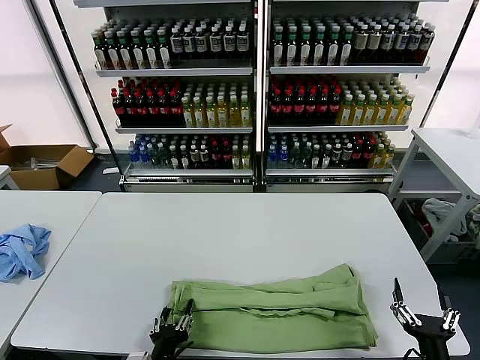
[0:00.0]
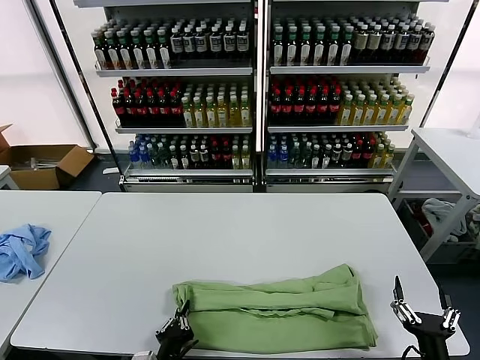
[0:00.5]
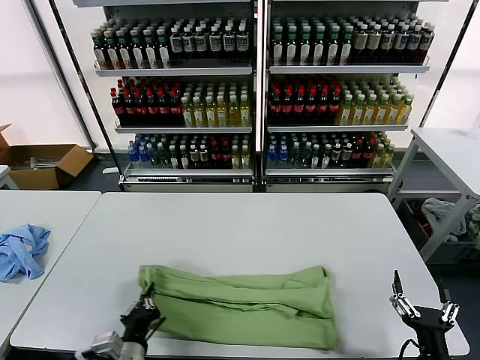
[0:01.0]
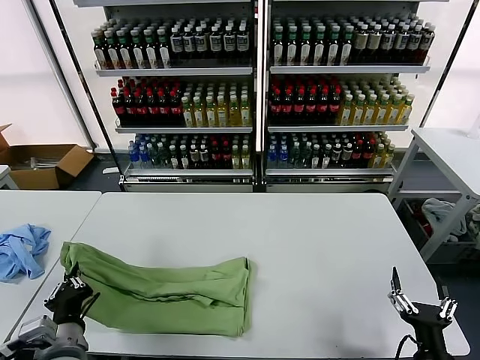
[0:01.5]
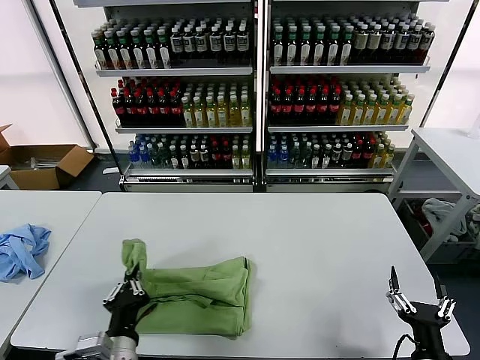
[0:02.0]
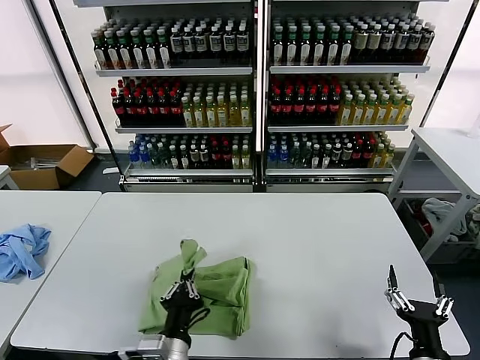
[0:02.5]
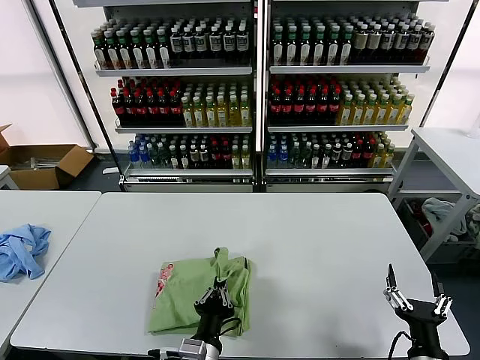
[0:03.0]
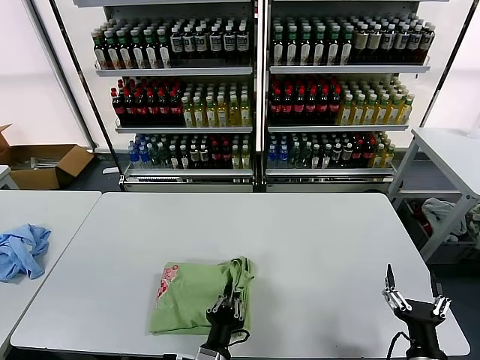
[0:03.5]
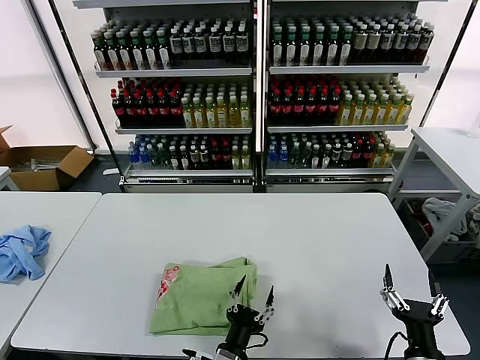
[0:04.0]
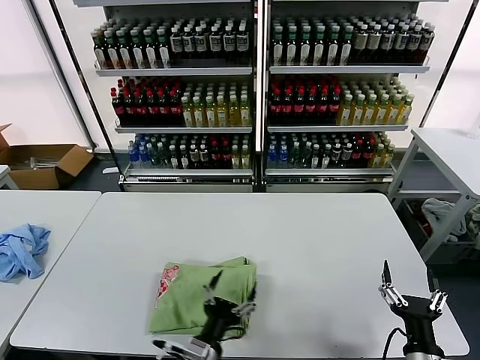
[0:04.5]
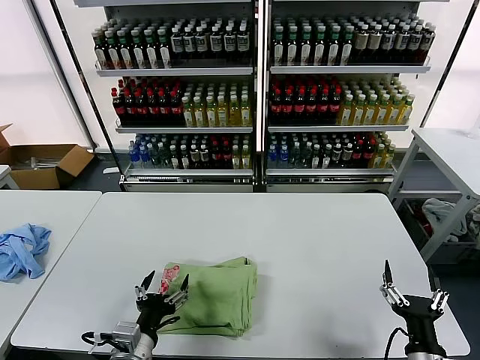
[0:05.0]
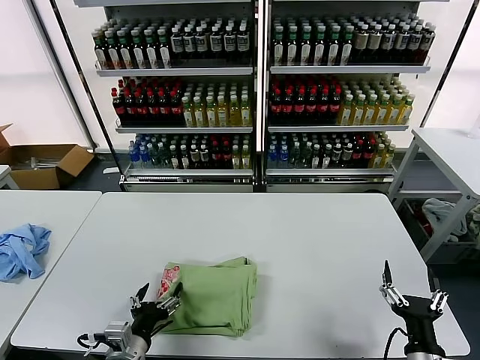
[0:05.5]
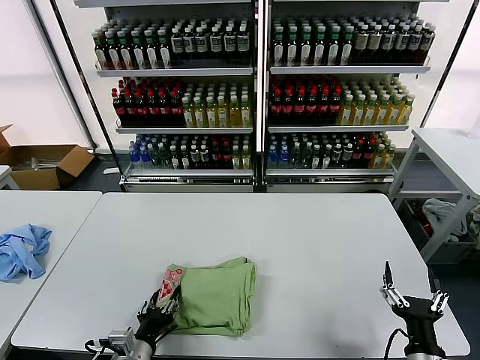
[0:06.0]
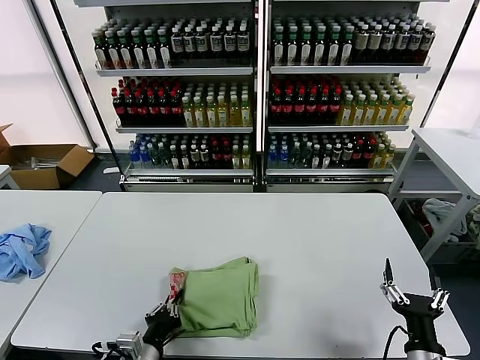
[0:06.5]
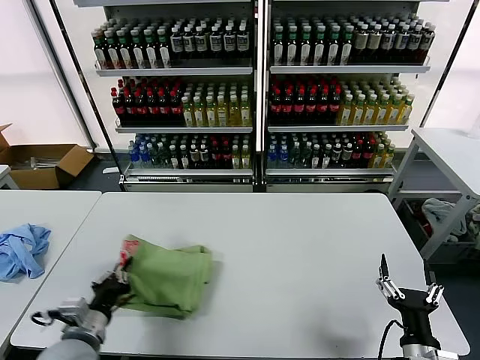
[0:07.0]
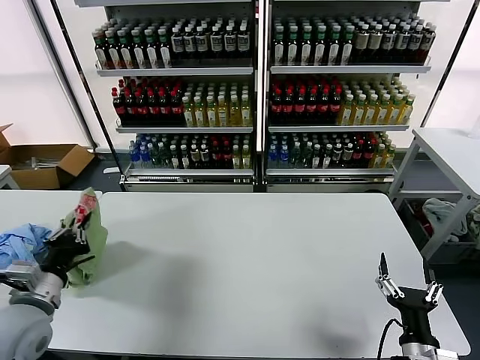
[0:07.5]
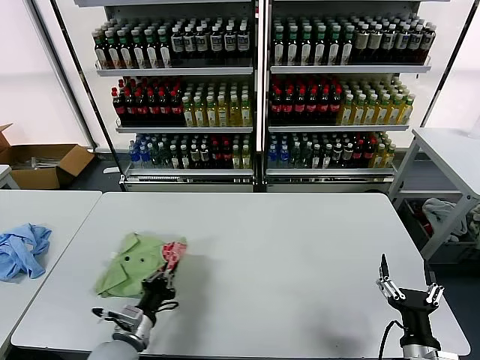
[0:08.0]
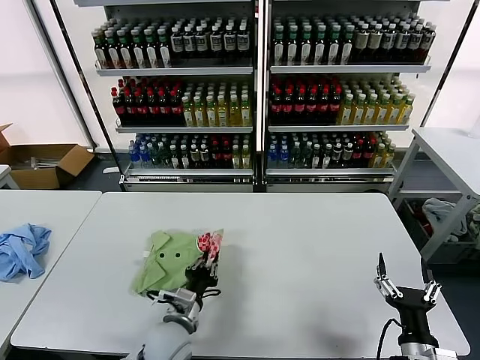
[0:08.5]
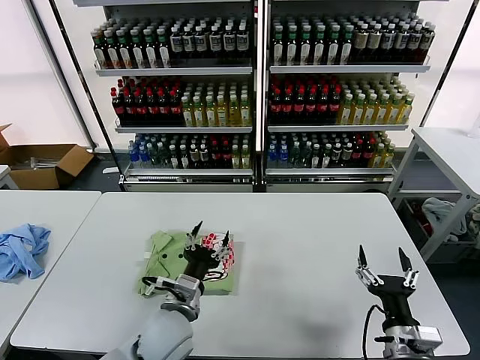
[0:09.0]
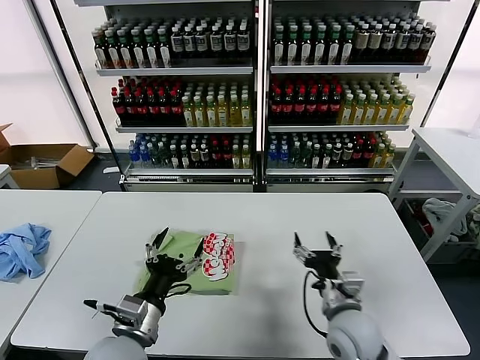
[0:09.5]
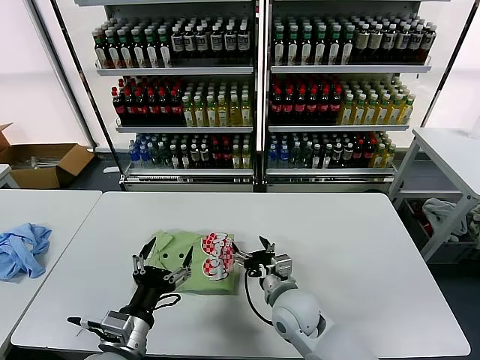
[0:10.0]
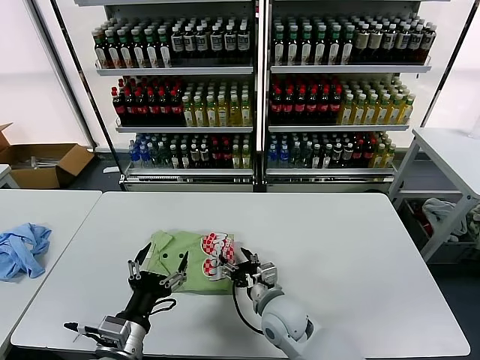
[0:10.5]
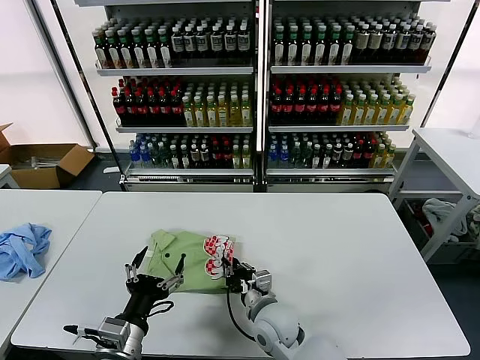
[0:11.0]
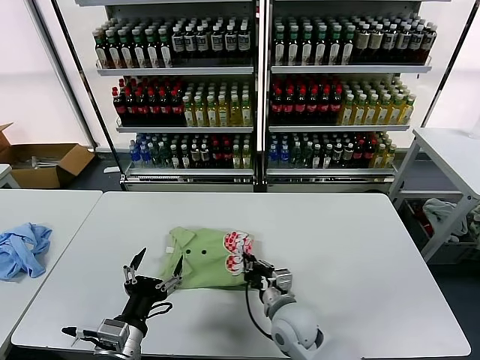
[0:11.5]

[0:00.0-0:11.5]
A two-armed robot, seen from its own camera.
Task of the whole recording: fold and organize the clothes.
Step, 0:01.0 to 0:03.5: use the left gripper to drag the left edge of the fabric to the left and folds it over the right edge.
Step, 0:04.0 to 0:08.5: Flip the folded clothes over with left gripper.
0:00.0 to 0:02.0: The left gripper shifts roughly 10 cm upward, travels to the left and back again, about 10 cm each way, and closes up.
0:02.0 to 0:04.0: The left gripper moves to the right and downward, approximately 20 cm, and opens up.
0:04.0 to 0:06.0: The left gripper moves to the left, approximately 20 cm.
0:06.0 to 0:07.5: The left gripper moves upward, to the left and forward, approximately 20 cm, and closes up.
0:07.5 to 0:09.5: The right gripper travels forward and to the left by roughly 15 cm; the left gripper shifts roughly 20 cm to the right, and opens.
0:09.5 to 0:11.5: The left gripper changes place by roughly 5 cm. Meanwhile the right gripper moves to the left and downward, about 15 cm, and closes.

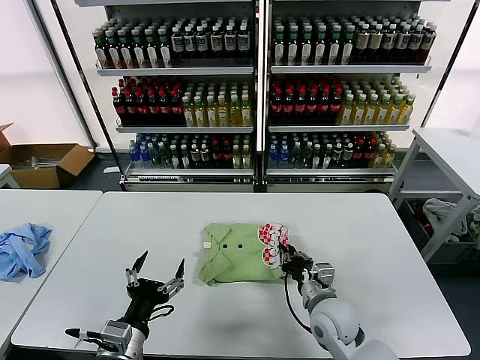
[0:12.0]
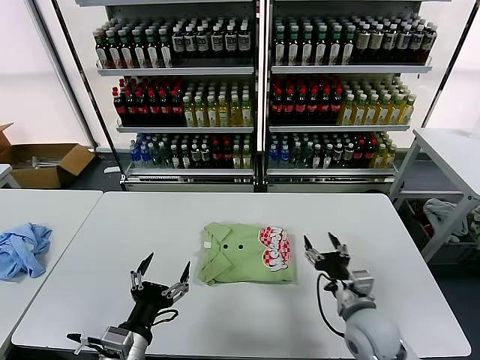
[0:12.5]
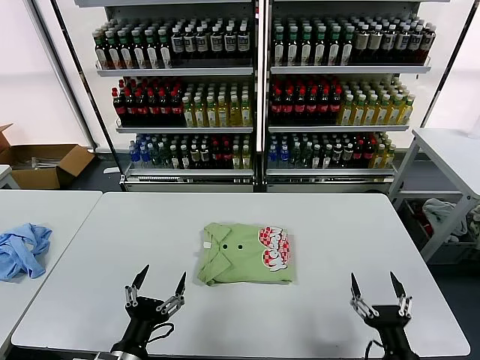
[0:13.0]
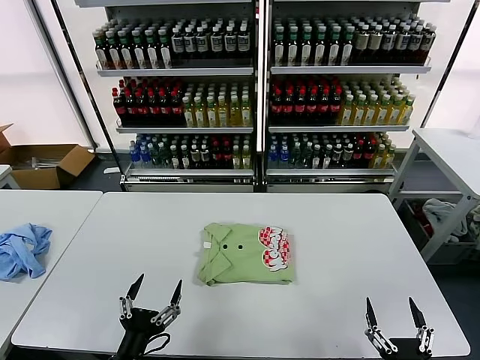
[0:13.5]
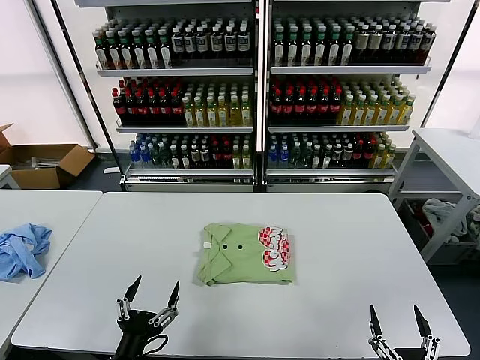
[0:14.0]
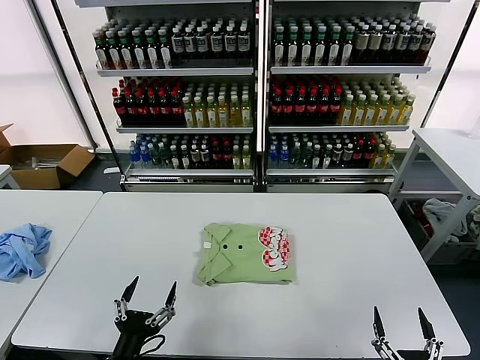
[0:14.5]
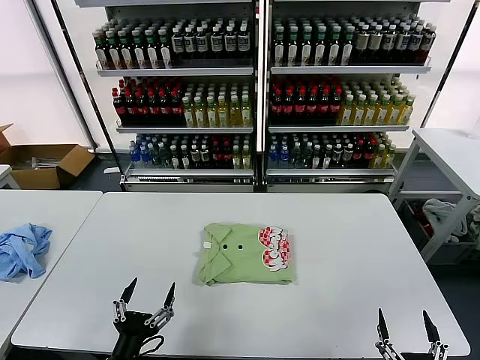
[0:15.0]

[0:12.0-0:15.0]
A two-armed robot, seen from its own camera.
Task of the whole recording: fold and organize the clothes.
0:12.0 to 0:13.5: The right gripper moves backward and to the right, about 25 cm, and opens up. The left gripper shifts about 5 cm backward.
0:13.5 to 0:15.0: There are only small adjustments of the grippers.
